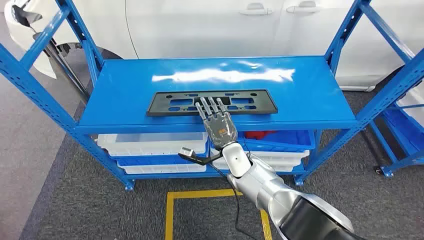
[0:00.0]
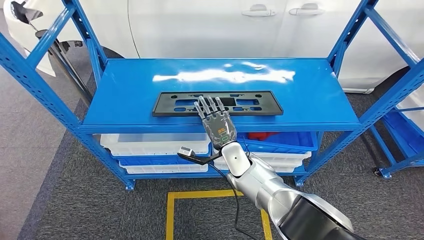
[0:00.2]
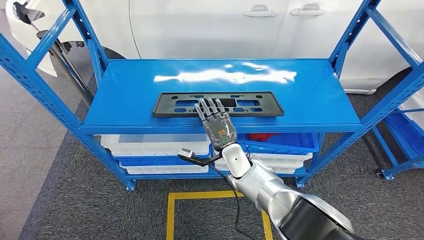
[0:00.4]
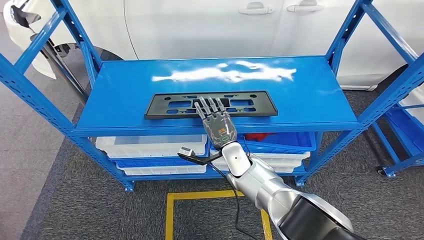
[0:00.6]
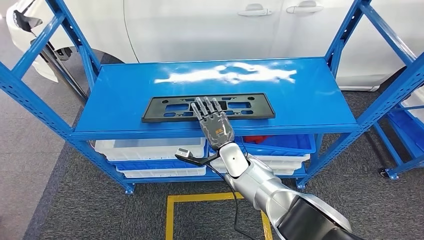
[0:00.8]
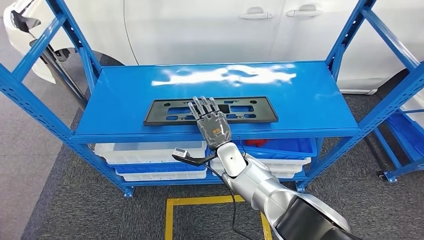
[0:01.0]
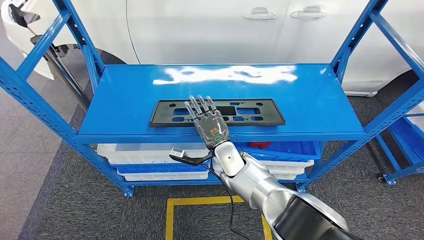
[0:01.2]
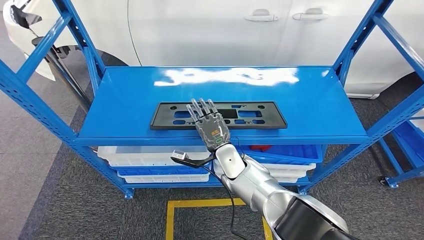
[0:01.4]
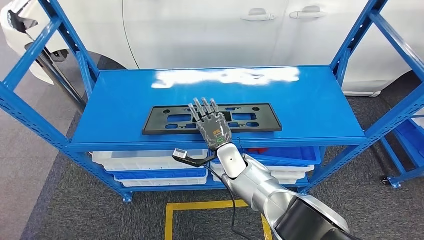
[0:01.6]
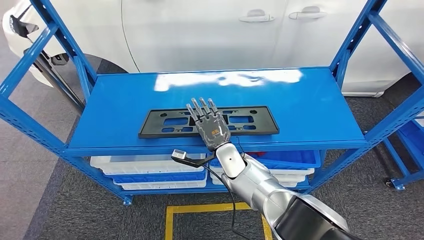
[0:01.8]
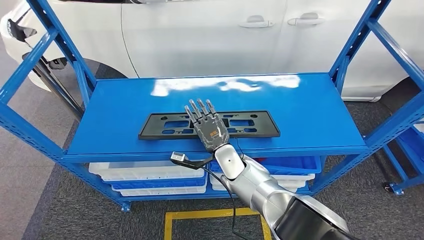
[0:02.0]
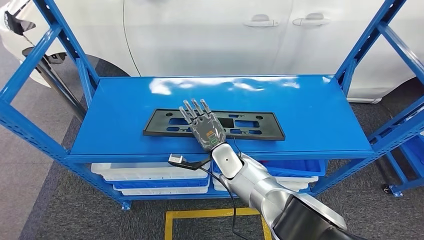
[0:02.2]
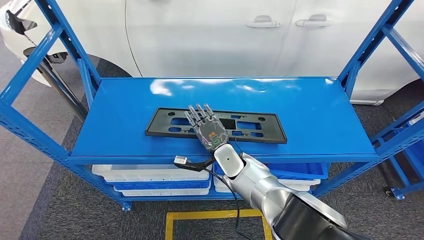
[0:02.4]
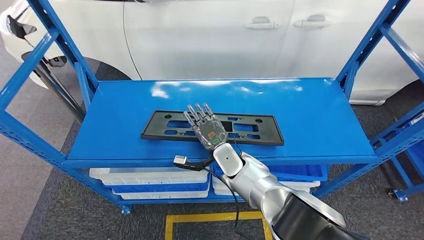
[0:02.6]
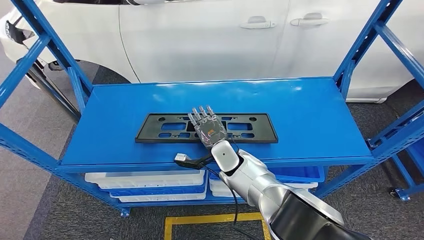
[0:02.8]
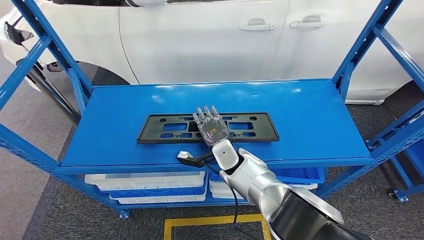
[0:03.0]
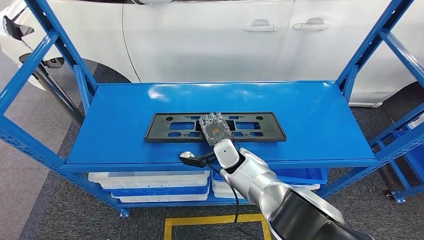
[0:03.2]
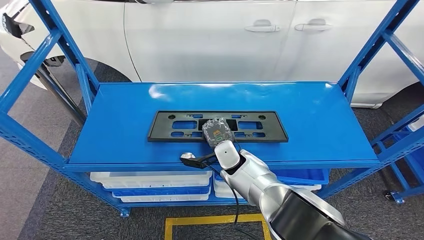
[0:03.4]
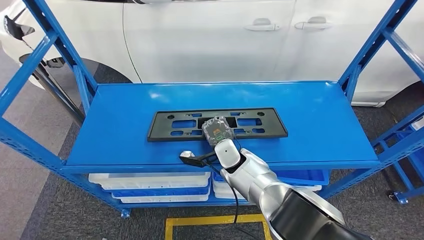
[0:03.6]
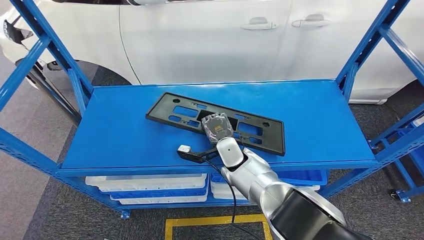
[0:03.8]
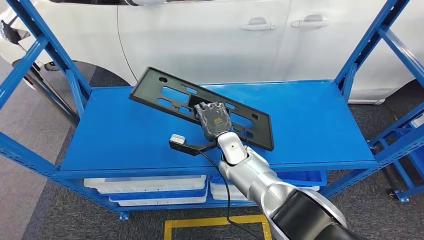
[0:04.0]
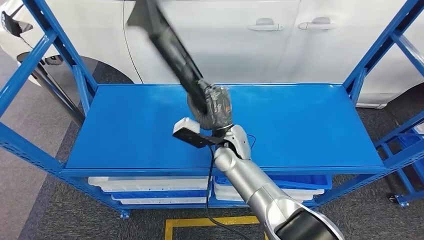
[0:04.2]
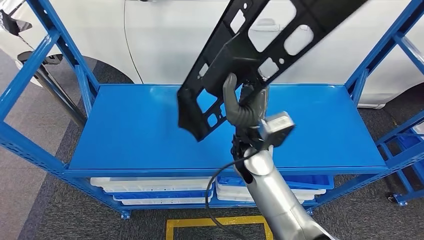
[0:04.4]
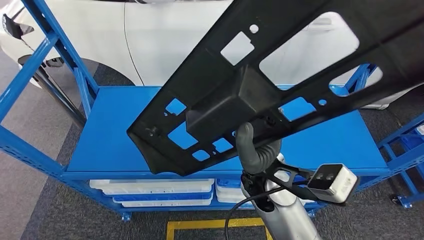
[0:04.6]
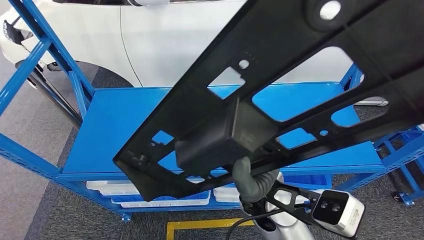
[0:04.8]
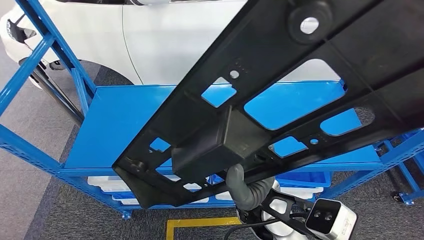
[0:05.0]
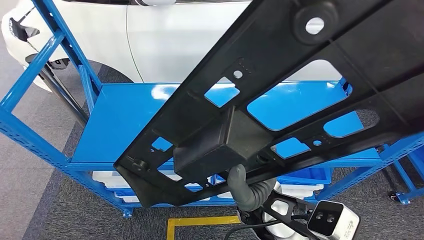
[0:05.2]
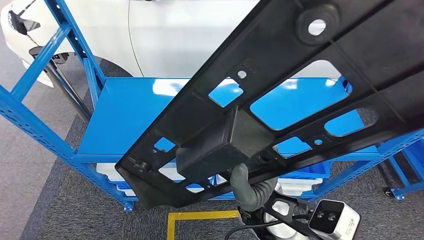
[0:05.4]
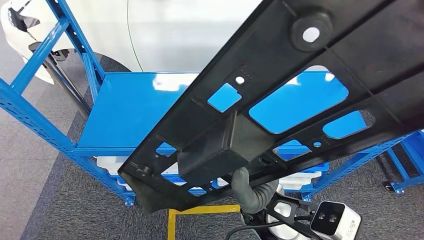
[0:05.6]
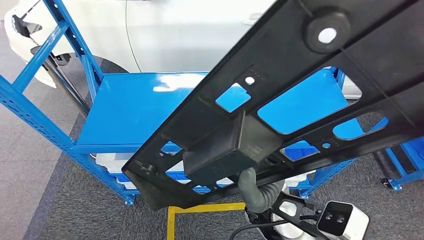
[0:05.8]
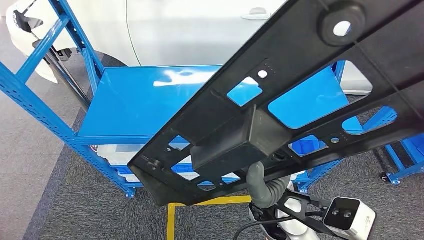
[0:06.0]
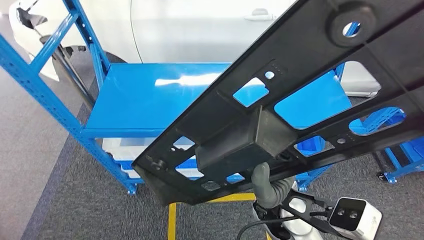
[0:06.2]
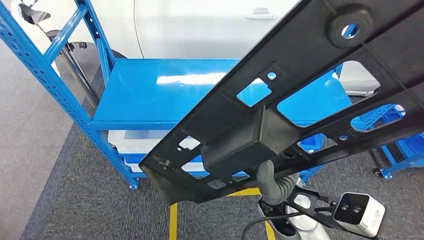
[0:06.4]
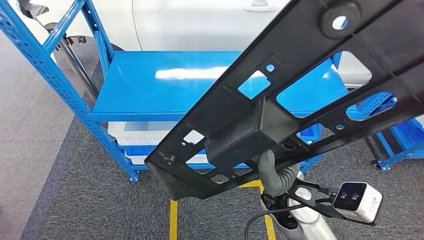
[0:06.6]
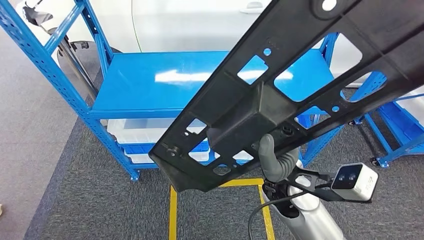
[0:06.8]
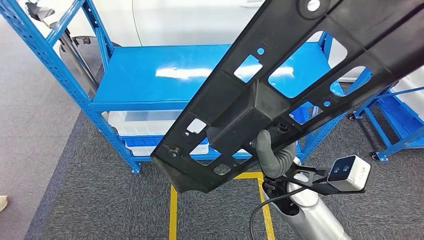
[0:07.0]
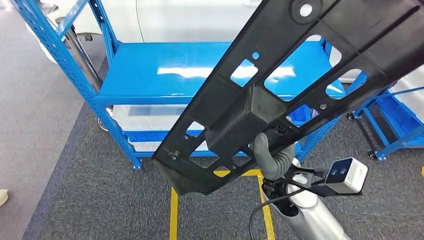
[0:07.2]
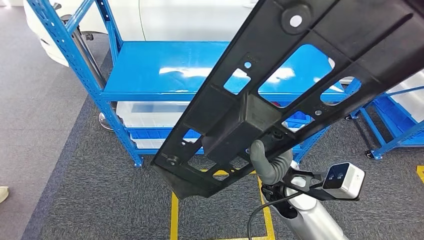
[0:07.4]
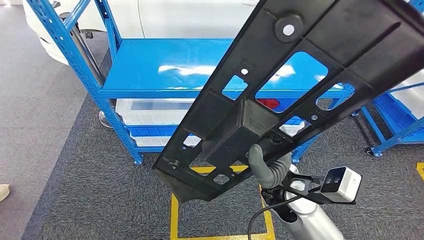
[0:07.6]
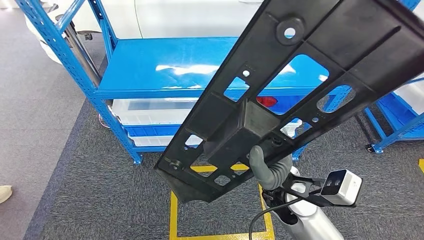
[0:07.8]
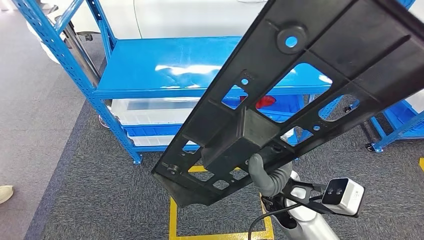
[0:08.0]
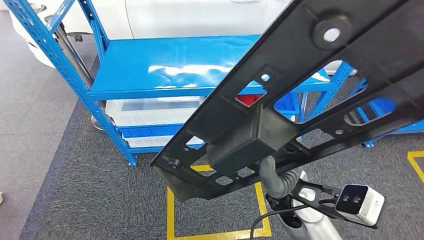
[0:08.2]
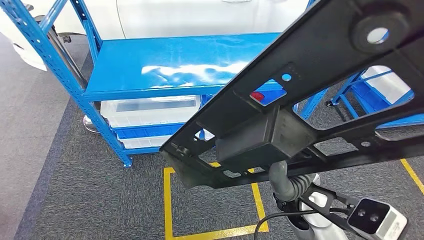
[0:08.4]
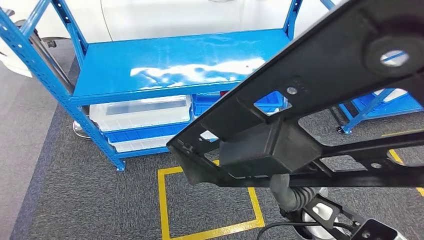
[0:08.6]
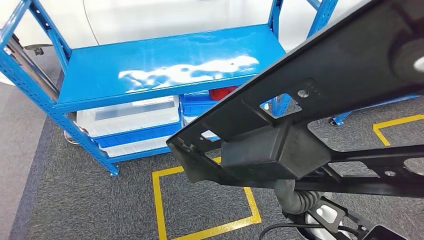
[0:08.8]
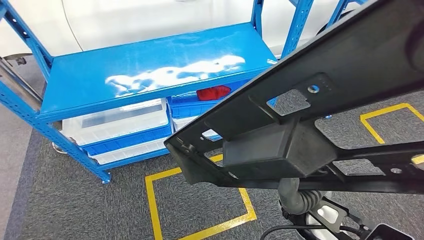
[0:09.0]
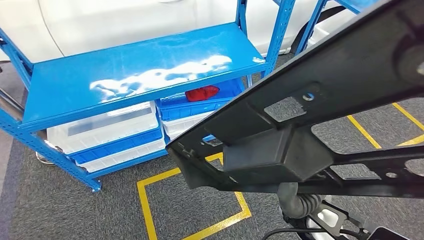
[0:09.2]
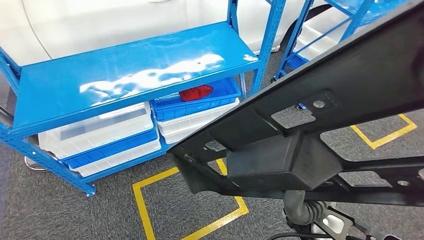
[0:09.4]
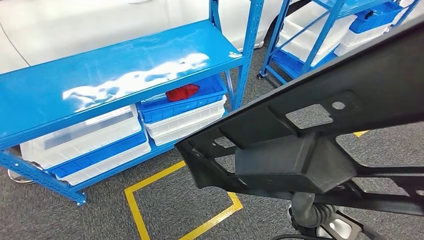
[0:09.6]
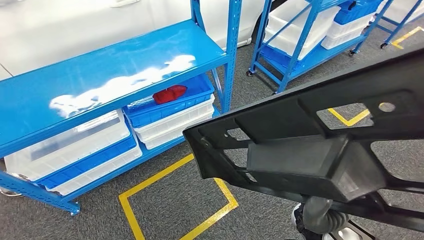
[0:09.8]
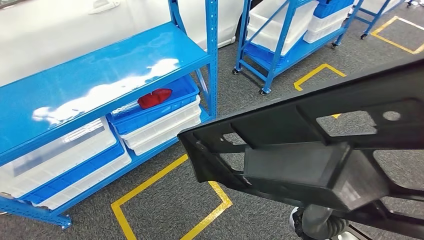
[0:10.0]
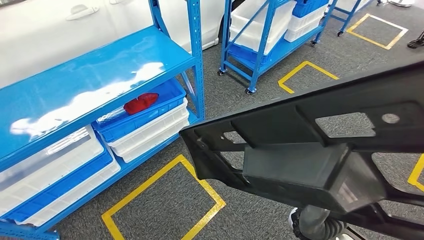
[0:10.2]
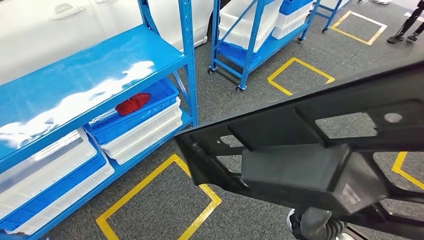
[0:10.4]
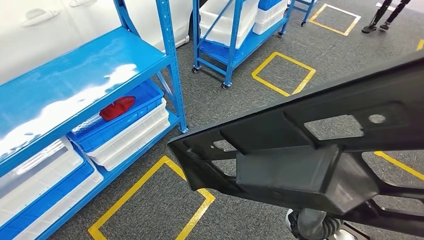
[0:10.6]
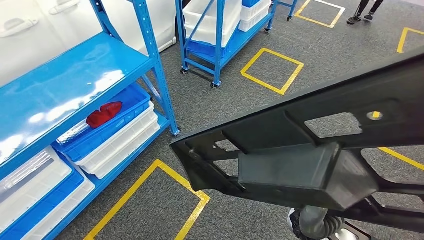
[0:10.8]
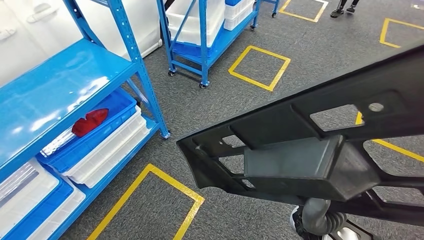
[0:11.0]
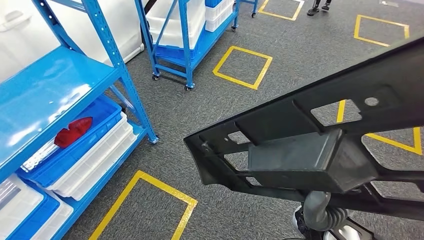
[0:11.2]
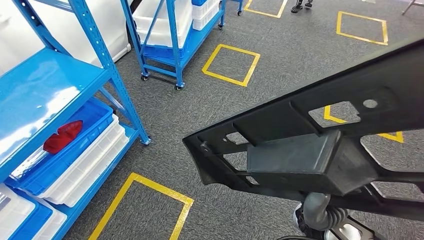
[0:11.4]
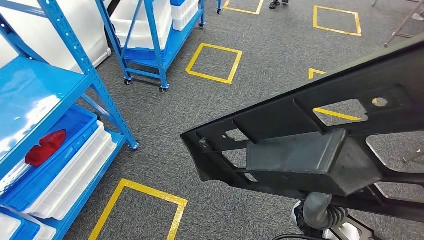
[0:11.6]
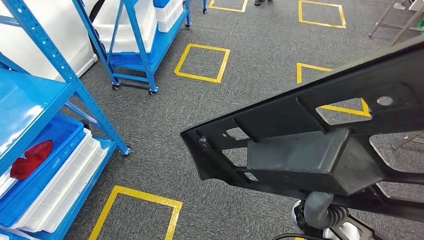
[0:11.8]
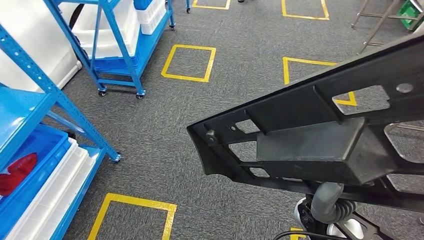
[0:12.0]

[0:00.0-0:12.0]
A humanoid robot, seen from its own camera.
Step, 0:00.0 to 0:04.8: Pick up the large material from the shelf.

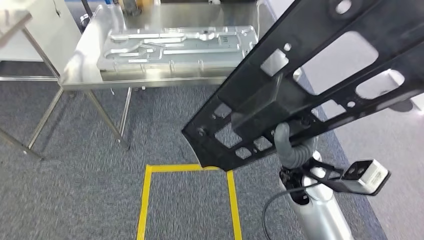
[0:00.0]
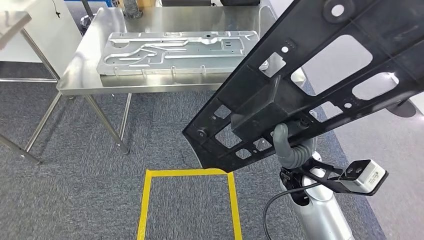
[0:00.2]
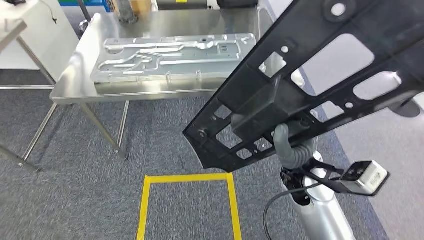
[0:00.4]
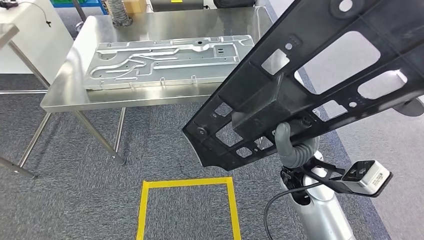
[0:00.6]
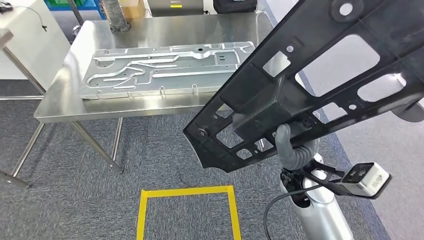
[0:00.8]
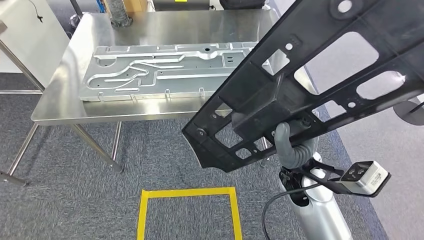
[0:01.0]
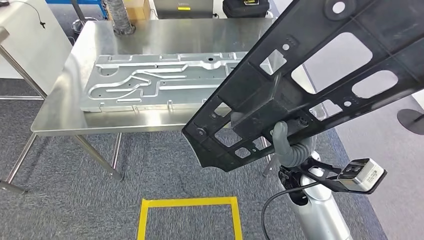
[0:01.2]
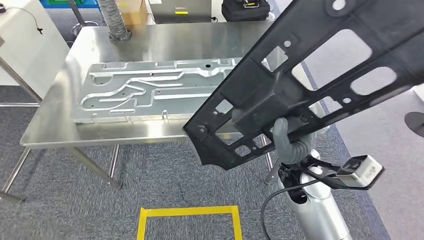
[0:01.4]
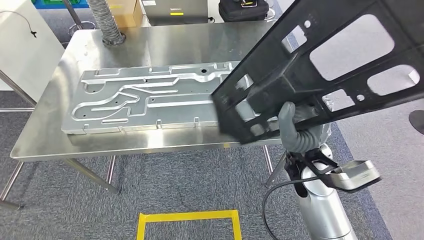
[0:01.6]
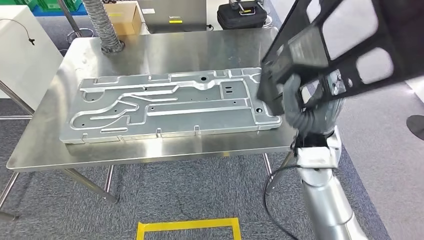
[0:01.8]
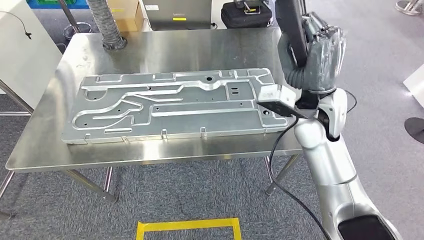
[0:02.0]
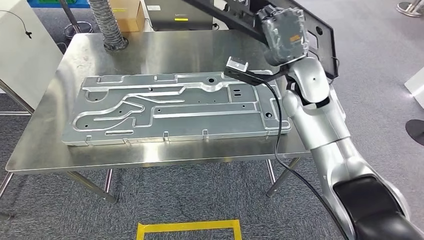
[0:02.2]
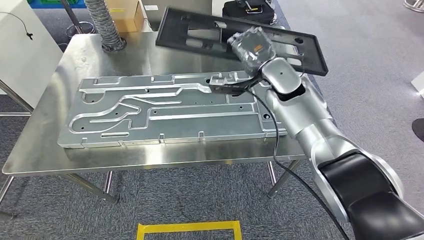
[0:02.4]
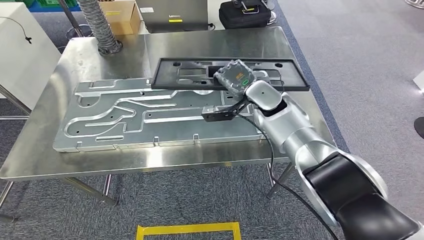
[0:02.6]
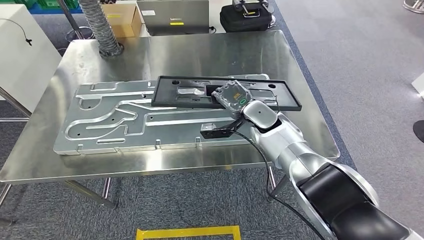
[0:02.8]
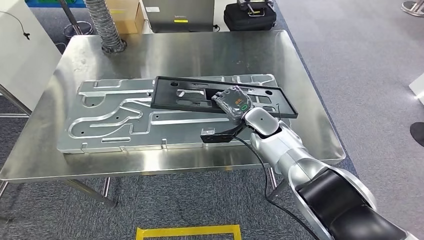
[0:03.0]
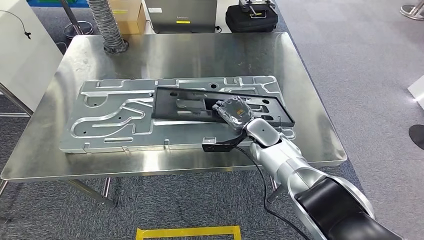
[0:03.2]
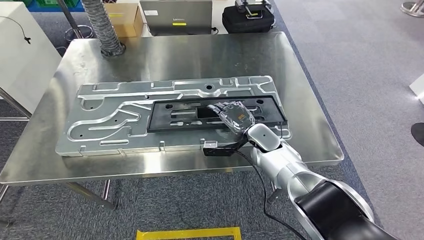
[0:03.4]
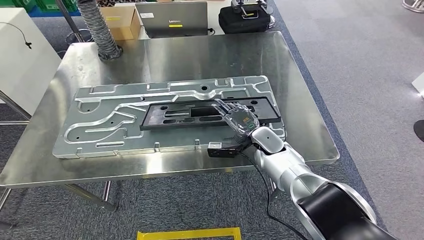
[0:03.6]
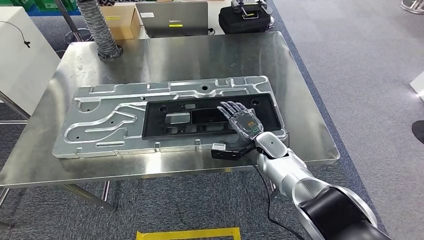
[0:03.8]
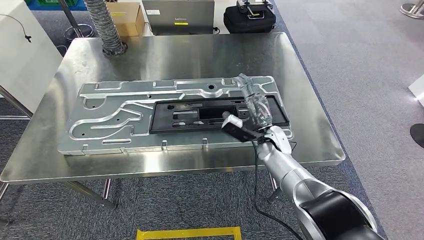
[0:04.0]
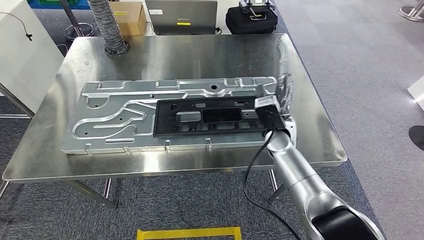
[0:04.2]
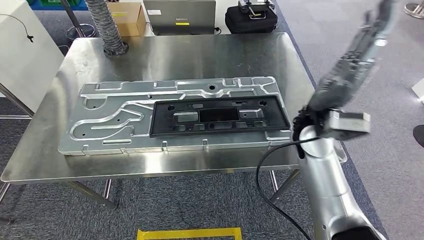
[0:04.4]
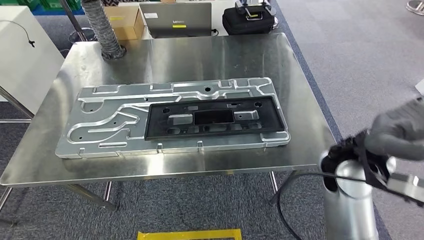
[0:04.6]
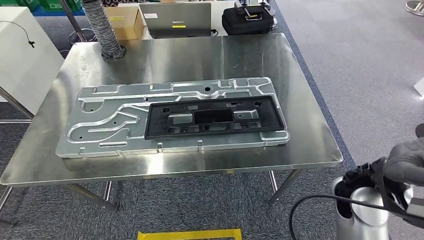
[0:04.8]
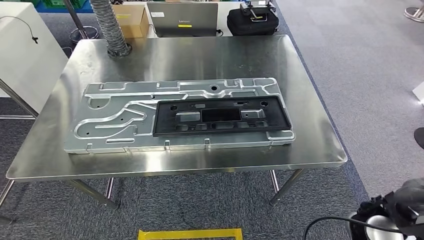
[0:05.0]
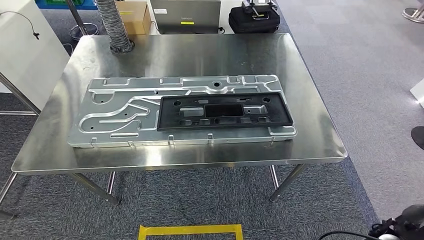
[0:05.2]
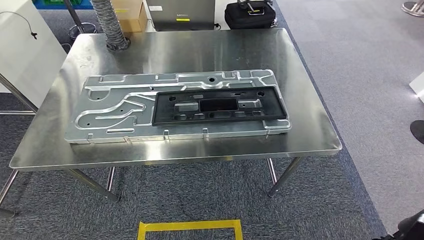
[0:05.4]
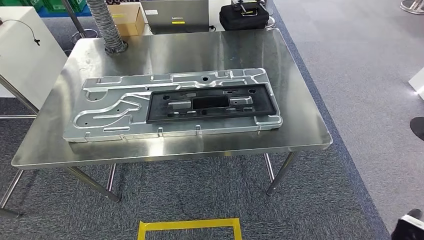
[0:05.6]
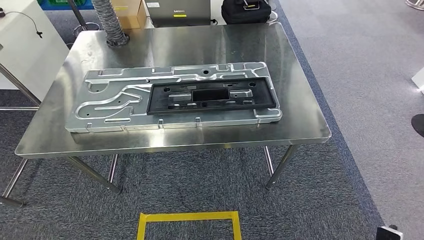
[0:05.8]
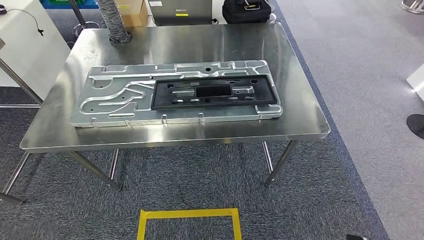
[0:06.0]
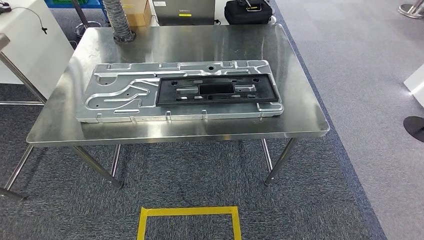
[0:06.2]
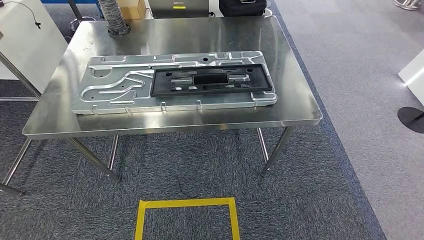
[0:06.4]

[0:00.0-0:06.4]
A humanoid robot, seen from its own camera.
Step, 0:00.0 to 0:03.0: Move the large material to the workbench.
Step, 0:03.2 to 0:05.0: Insert the large material into the corresponding slot on the workbench.
